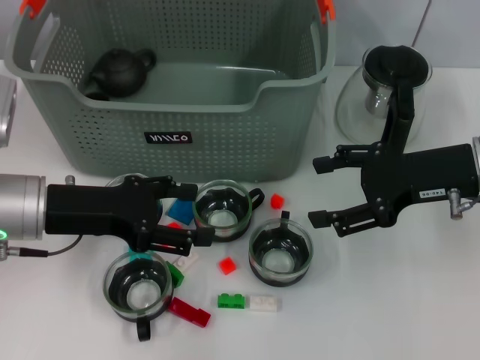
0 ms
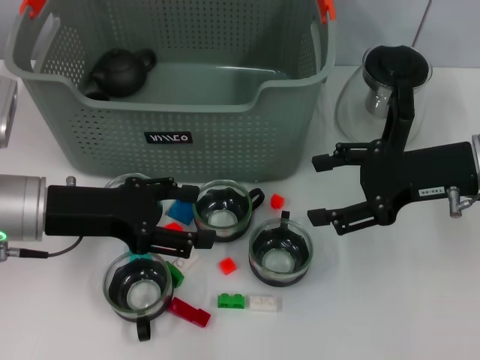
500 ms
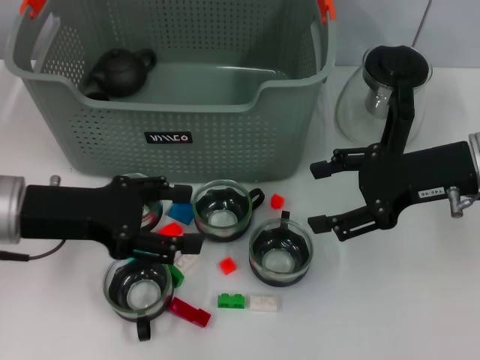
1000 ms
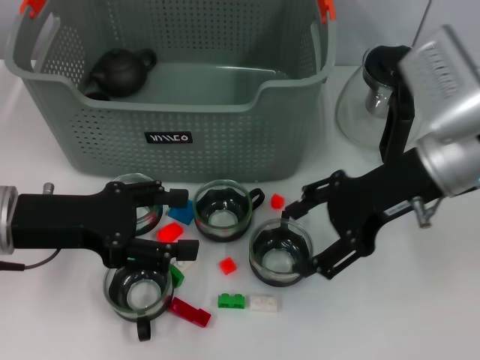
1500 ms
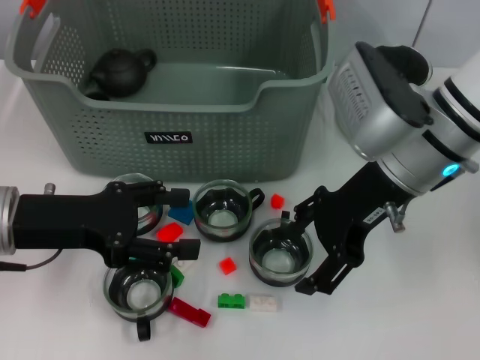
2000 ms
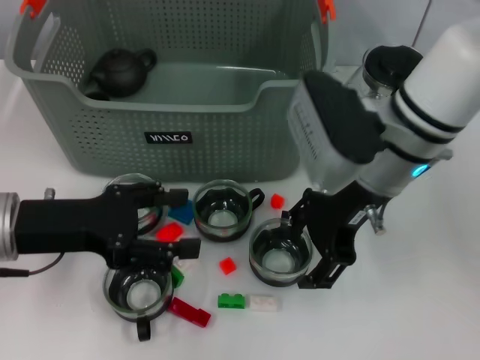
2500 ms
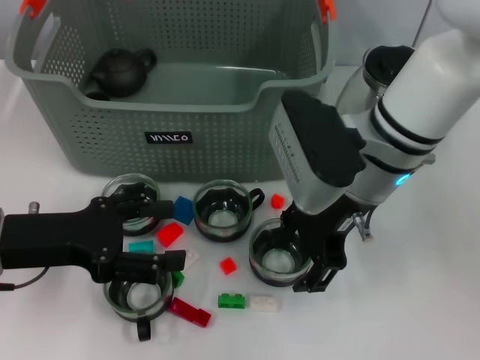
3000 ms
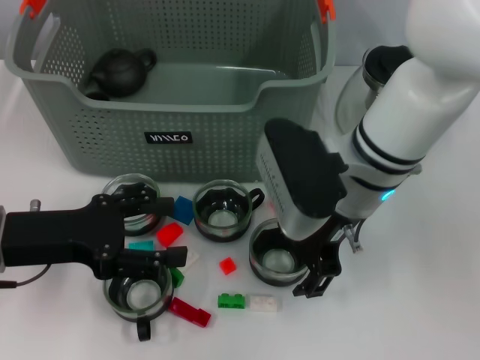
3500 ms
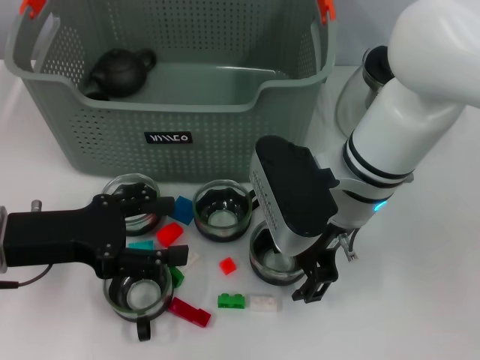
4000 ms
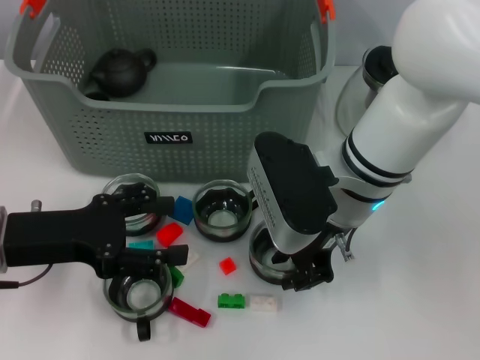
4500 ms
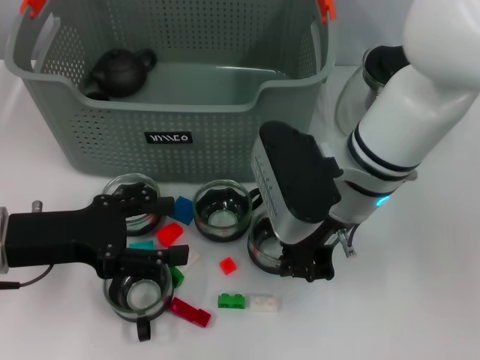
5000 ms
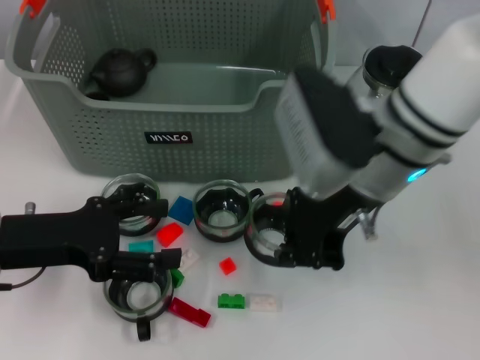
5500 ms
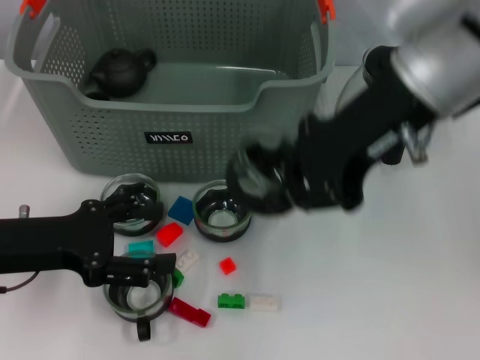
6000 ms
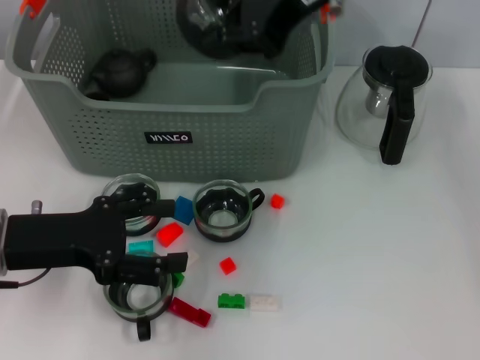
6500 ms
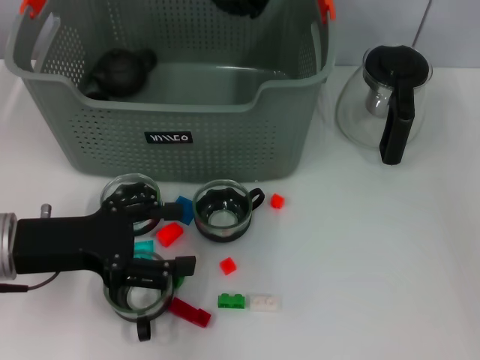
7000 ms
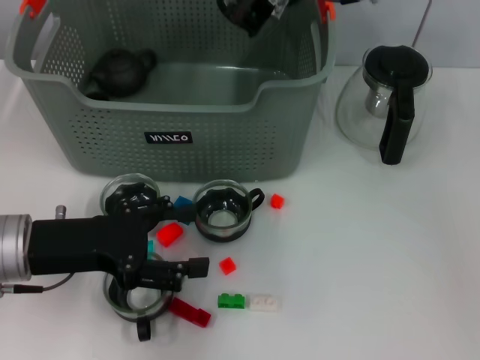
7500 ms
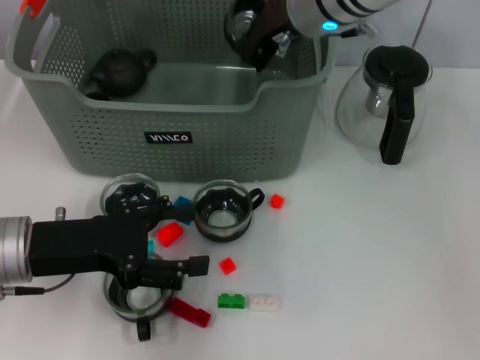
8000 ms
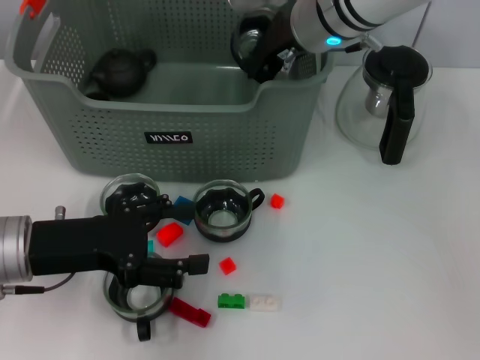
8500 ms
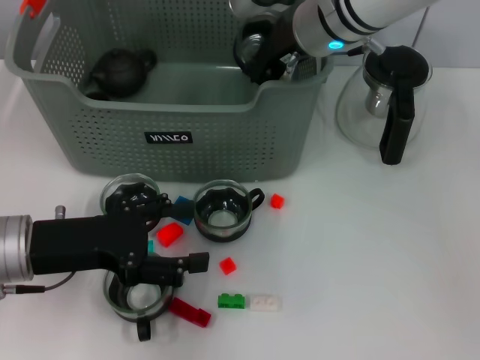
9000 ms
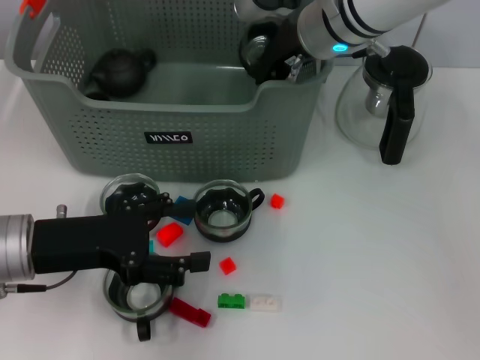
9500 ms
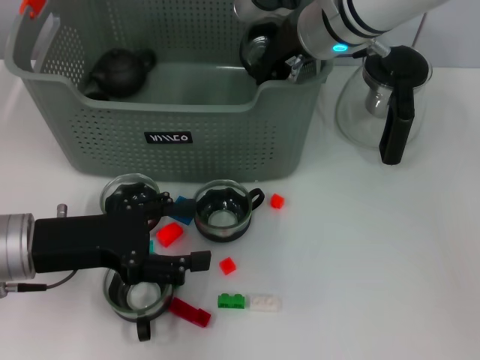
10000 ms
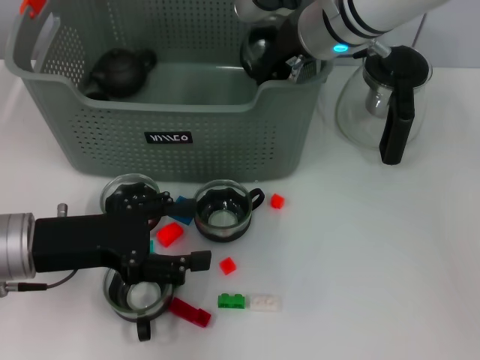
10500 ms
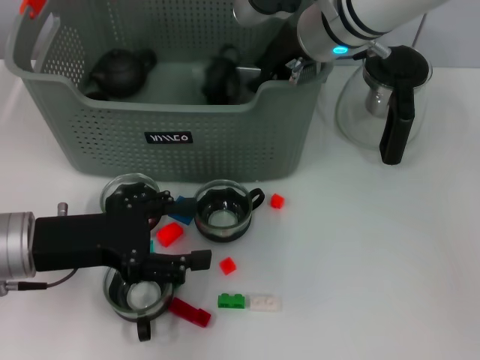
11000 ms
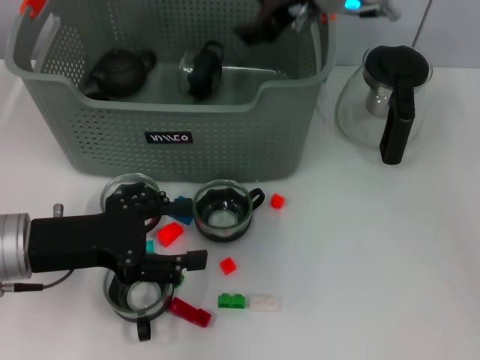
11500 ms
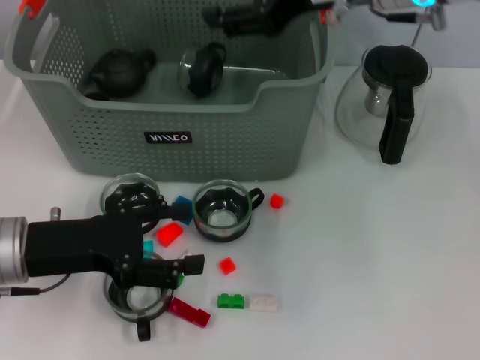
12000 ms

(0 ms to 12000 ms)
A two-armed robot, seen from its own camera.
Task of the whole recording: pick up the teacup on the table and place it into the storage bin, pick up the block on the table and place it into the storage bin.
Step, 0 ms - 4500 ms: Grasp the cup with right gripper.
Step, 5000 ms - 11000 ms: Place the cup in the storage box with right gripper.
0 ms - 2000 ms: The right gripper moves to the left, approximately 10 cm.
2000 ms - 4000 ms: The right gripper shifts roughly 5 cm to the left.
4000 ms - 6000 ms: The right gripper heads upward, covering some 15 cm, and closes up.
6000 ms - 8000 ms: The right gripper moves forward, downward and to the left, about 15 cm.
8000 ms - 10000 ms: The grippers stay close to where they were, moving slightly.
10000 ms - 12000 ms: The right gripper goes about 10 cm upward, backward and to the right, and opens.

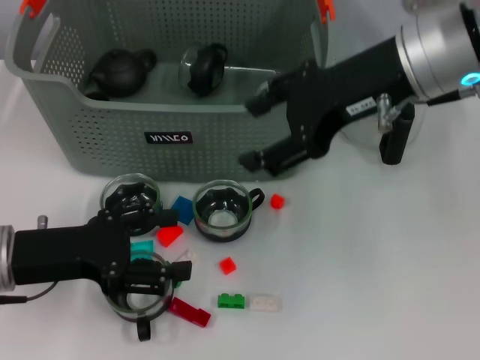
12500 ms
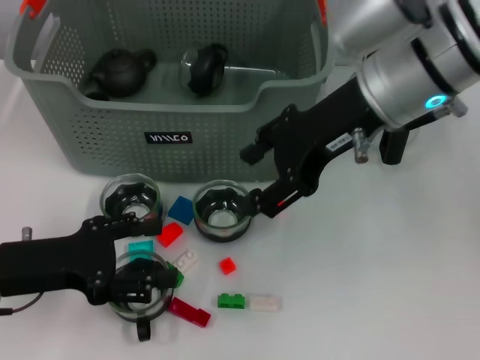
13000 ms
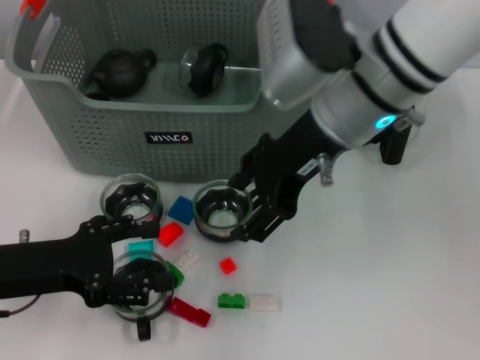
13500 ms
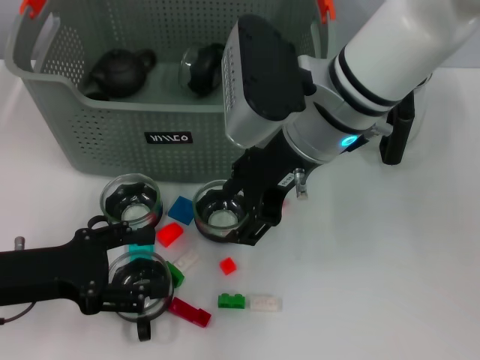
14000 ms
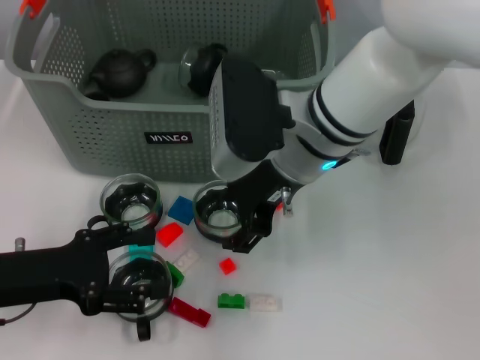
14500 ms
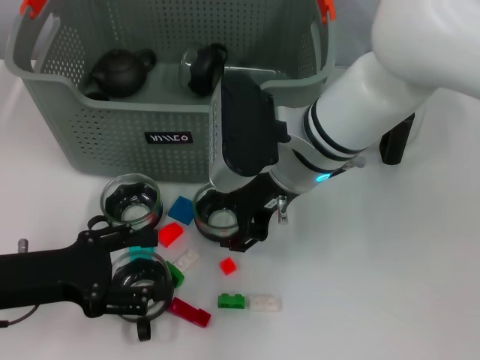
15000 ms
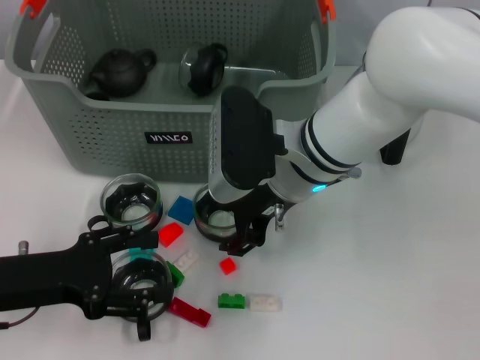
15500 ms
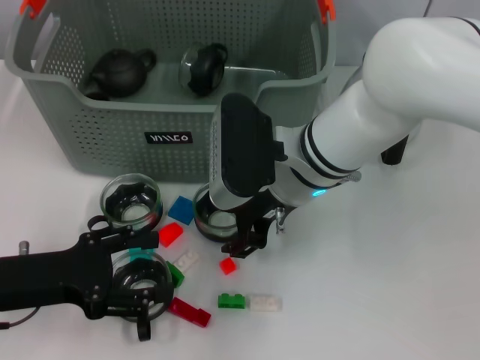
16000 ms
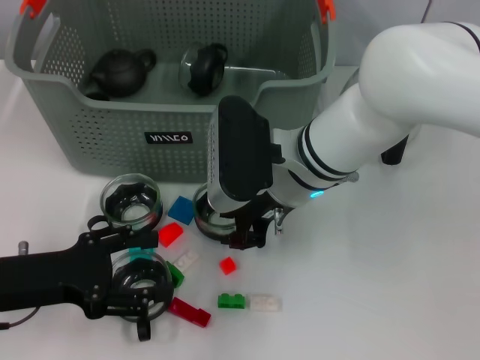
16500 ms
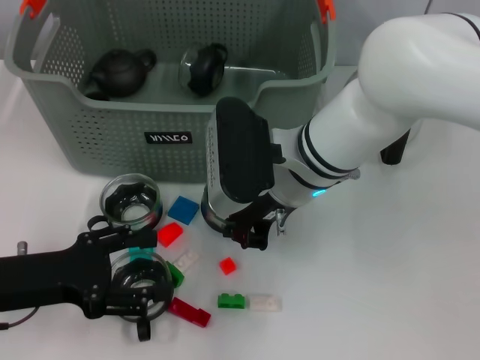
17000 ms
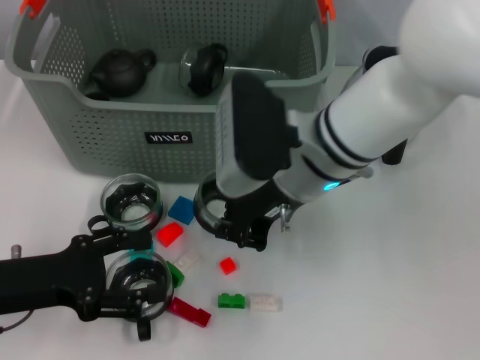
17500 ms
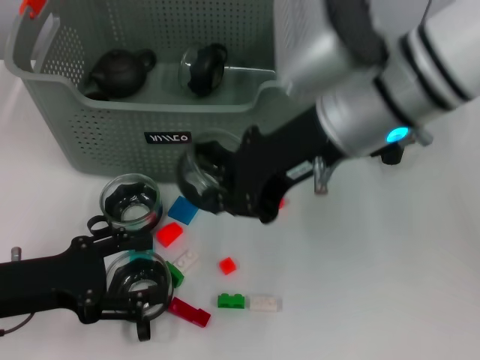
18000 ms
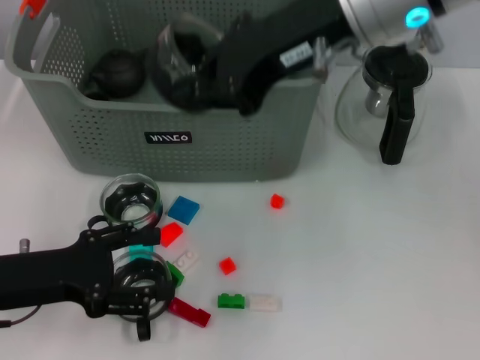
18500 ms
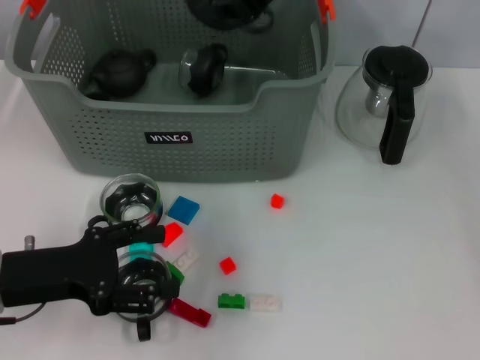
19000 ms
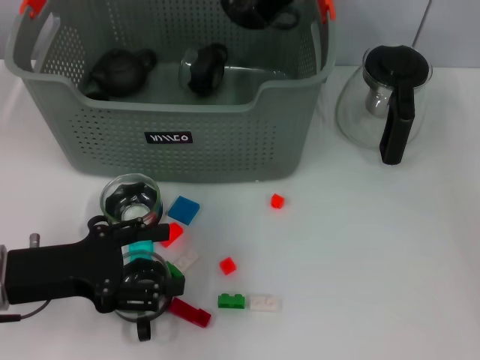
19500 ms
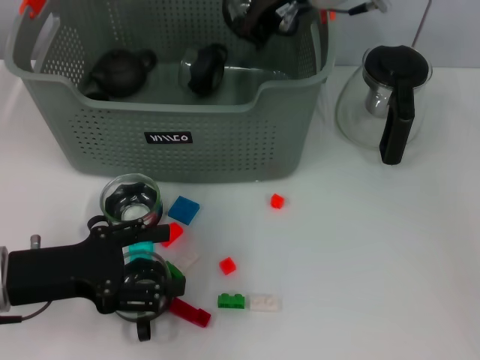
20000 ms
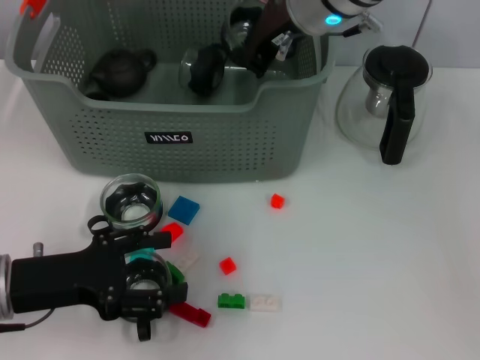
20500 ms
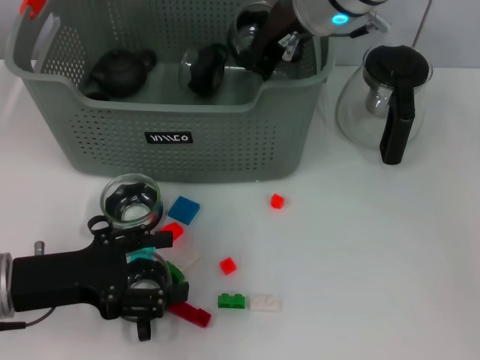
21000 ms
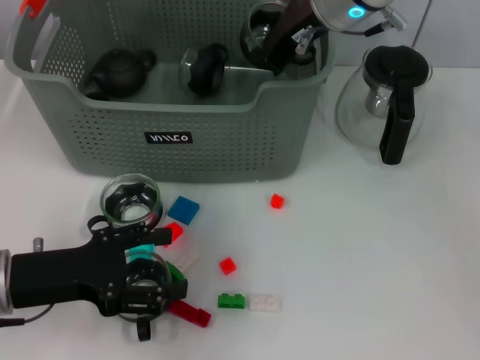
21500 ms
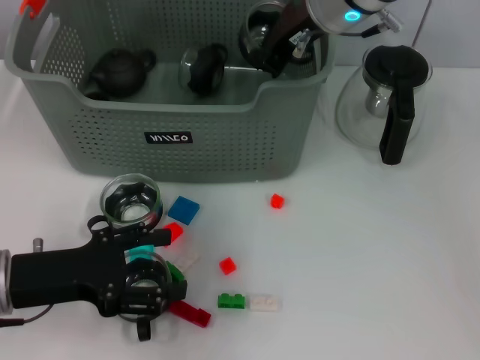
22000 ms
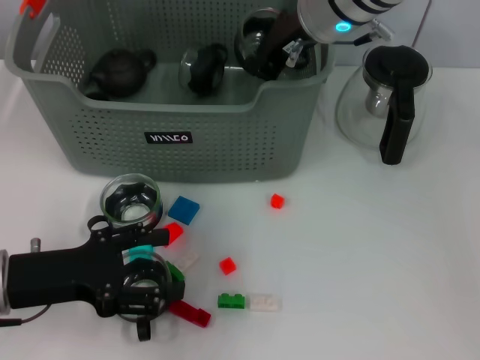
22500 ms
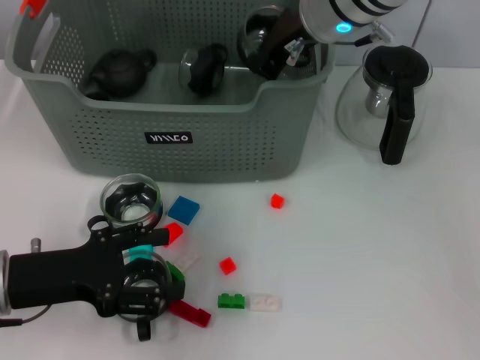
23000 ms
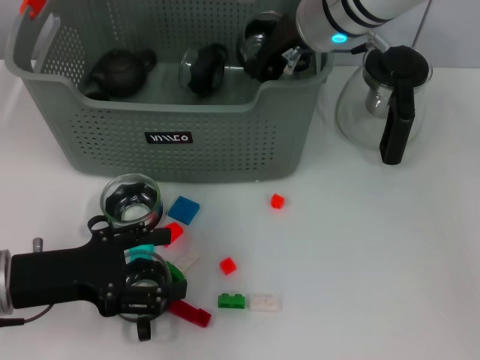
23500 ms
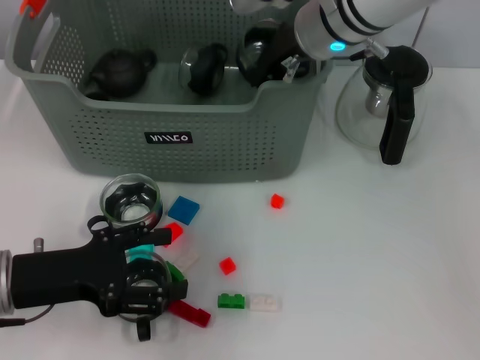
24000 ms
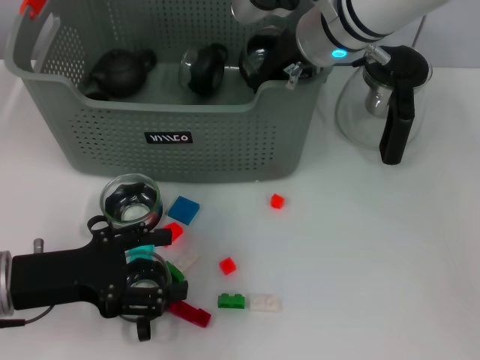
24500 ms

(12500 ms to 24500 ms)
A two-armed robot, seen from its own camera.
Task of the whole recording: pick up the teacup on the table and place it into the storage bin, pick up the block on the table and place it into the storage bin.
Step, 12500 ms - 16500 ms: Grasp the cup with right gripper.
12500 ms - 14500 ms: The right gripper travels to the left and downward by roughly 15 cm.
14500 ms - 16500 ms: The grippers stay close to where they were, moving slightly.
16500 ms - 18500 ms: The right gripper moves upward, approximately 20 cm, and closes.
18500 ms - 20500 ms: The right gripper travels forward and downward by some 10 cm.
20500 ms - 24500 ms: There are only small adjustments of the grippers.

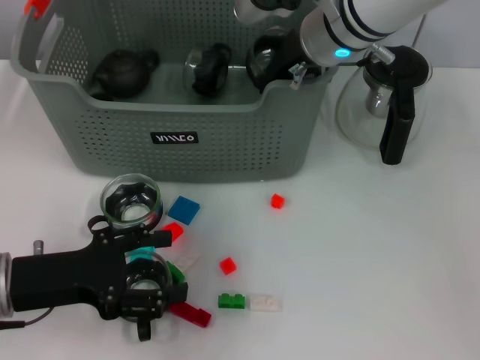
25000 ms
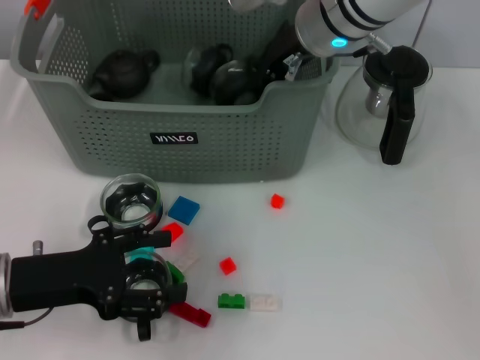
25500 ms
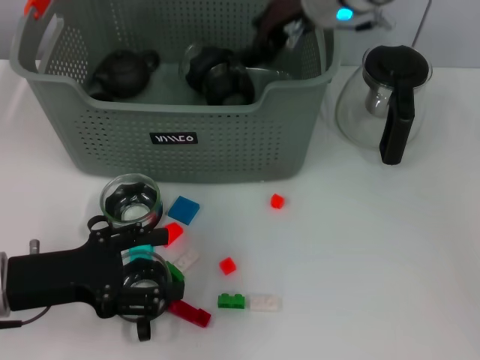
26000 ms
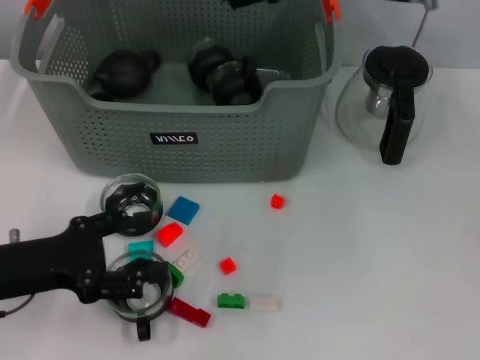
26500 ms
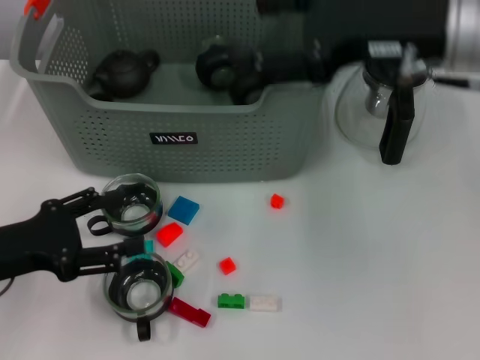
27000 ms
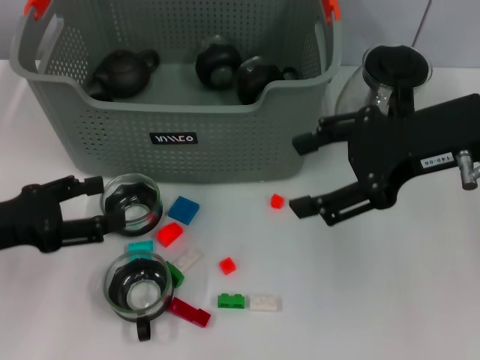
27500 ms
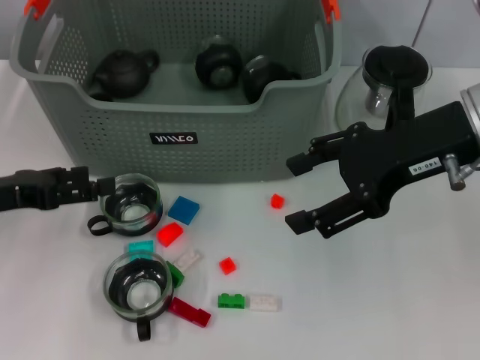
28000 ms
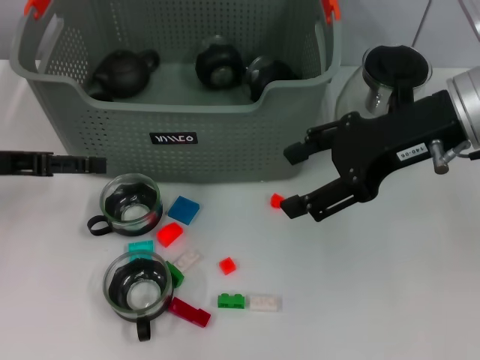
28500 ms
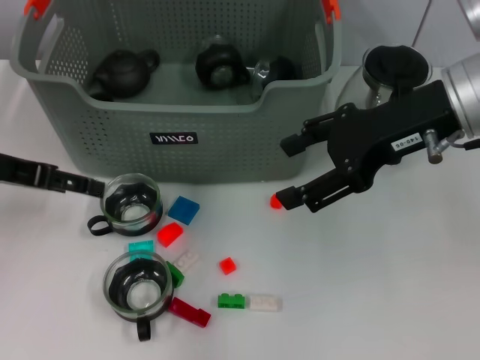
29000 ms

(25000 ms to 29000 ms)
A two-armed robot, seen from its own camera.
Task of the whole recording: pick up the teacup on the table and place it into the storage bin, pick up the block on the table and place it into the storage bin.
25000 ms - 27000 ms: The right gripper shifts roughly 15 cm backward, to the right and upward, and opens its fingers.
27000 ms - 29000 ms: The left gripper moves forward and upward, about 15 cm.
